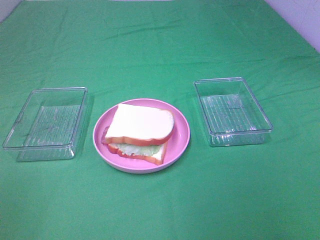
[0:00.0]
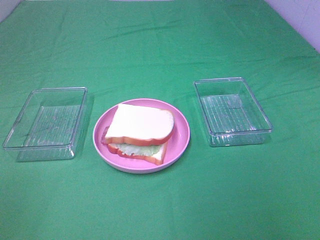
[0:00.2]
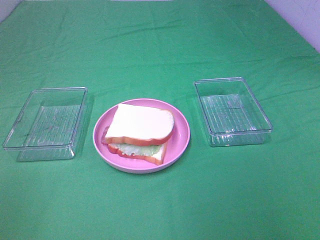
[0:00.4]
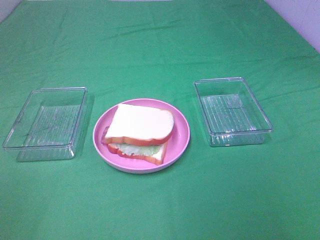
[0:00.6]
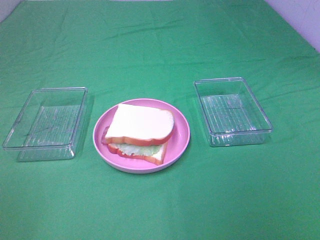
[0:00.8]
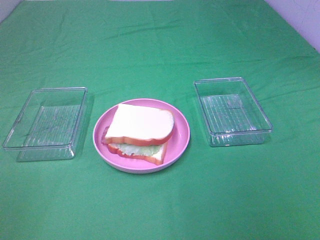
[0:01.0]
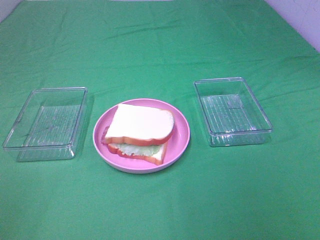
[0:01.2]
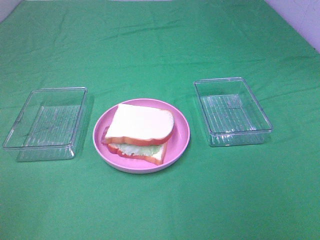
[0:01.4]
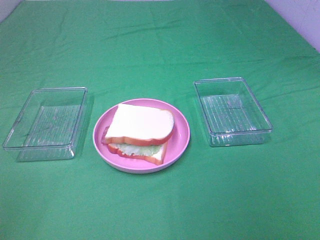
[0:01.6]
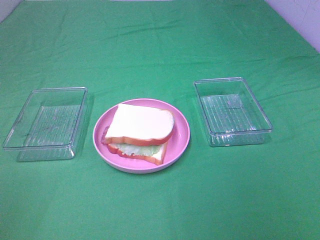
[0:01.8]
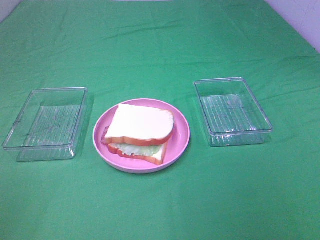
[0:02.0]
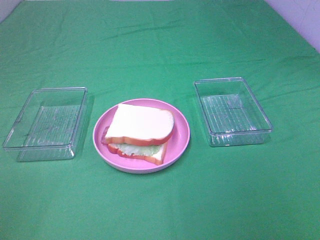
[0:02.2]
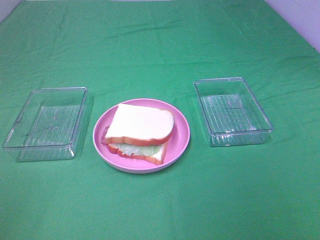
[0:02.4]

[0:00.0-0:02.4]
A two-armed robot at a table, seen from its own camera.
Task of the whole recording: Make sandwiches.
0:01.2 to 0:02.4: Neither gripper changes place.

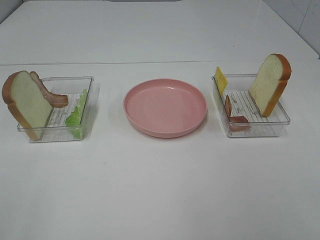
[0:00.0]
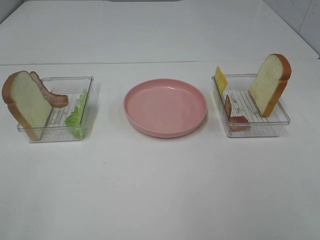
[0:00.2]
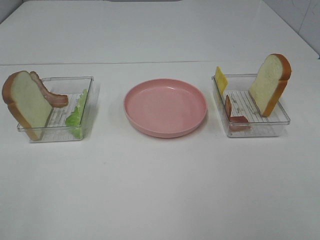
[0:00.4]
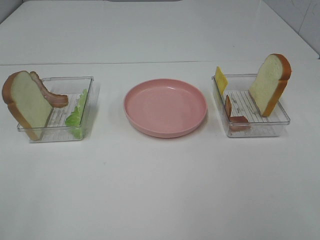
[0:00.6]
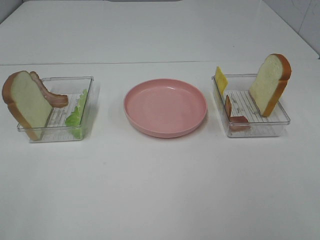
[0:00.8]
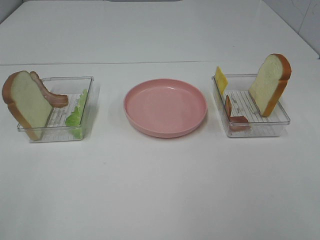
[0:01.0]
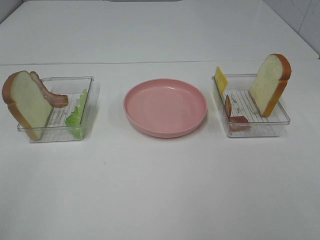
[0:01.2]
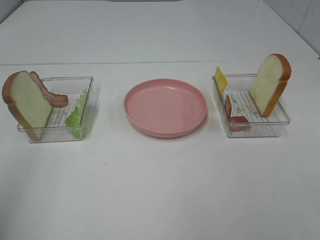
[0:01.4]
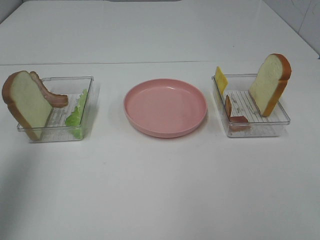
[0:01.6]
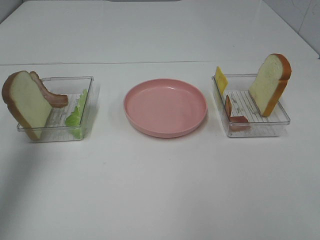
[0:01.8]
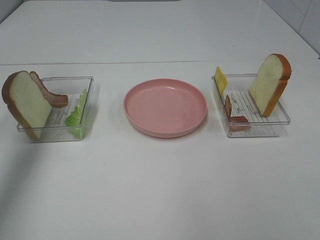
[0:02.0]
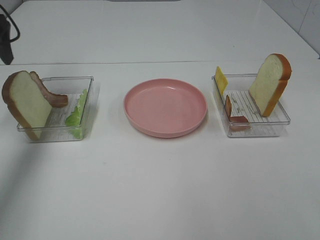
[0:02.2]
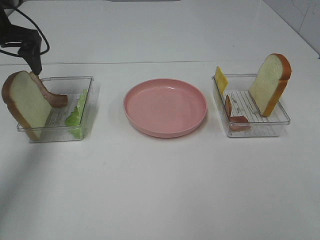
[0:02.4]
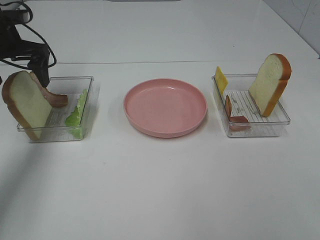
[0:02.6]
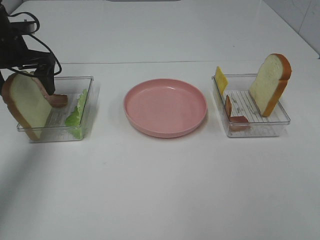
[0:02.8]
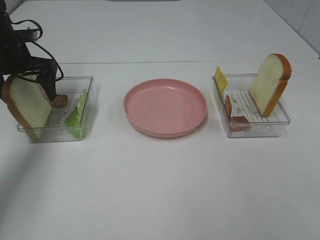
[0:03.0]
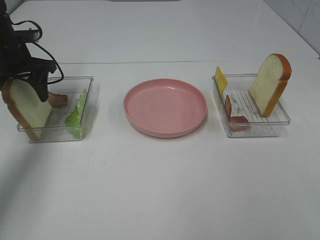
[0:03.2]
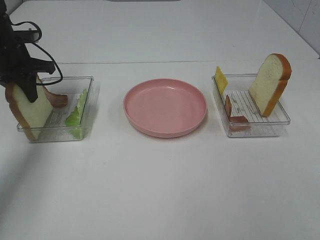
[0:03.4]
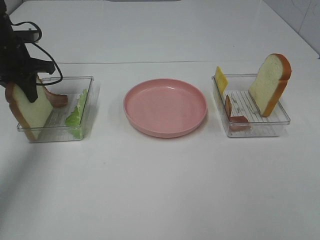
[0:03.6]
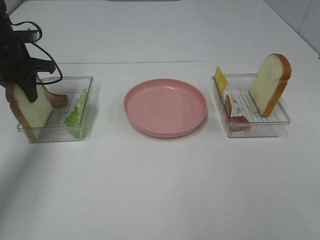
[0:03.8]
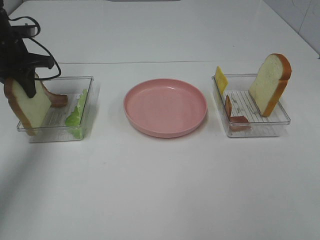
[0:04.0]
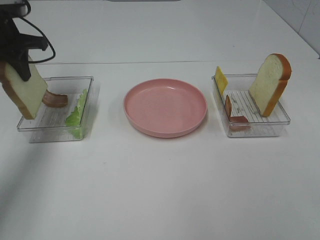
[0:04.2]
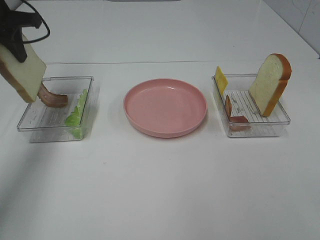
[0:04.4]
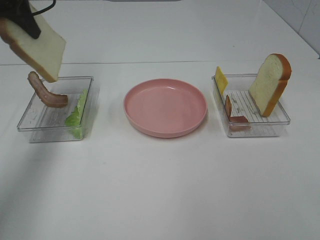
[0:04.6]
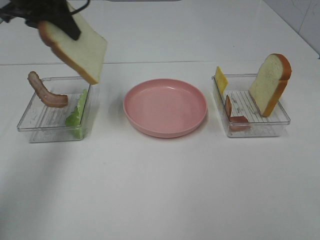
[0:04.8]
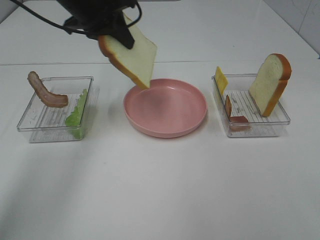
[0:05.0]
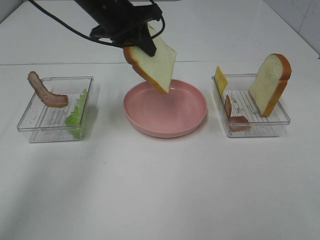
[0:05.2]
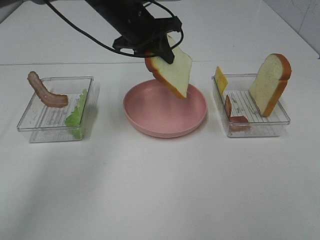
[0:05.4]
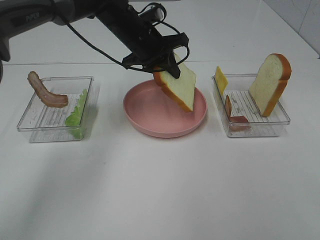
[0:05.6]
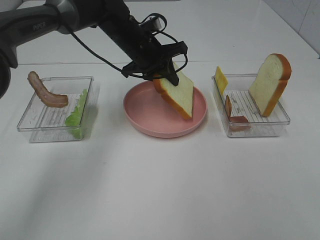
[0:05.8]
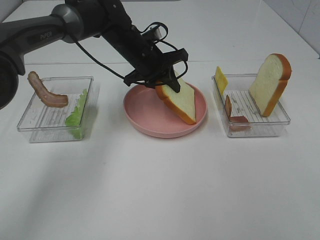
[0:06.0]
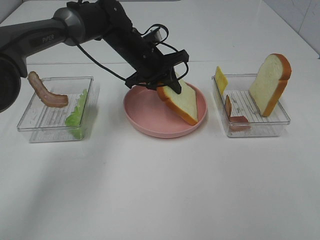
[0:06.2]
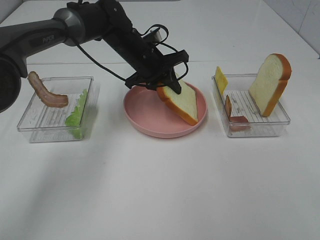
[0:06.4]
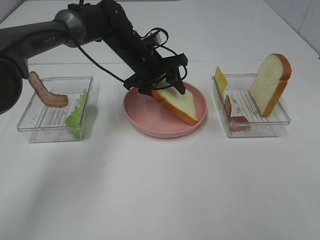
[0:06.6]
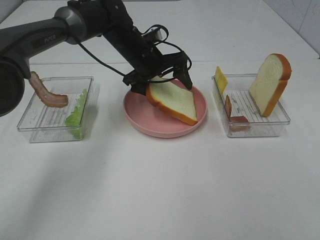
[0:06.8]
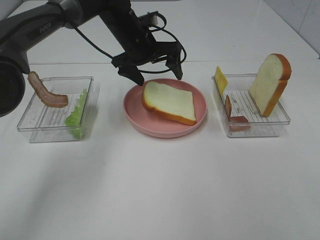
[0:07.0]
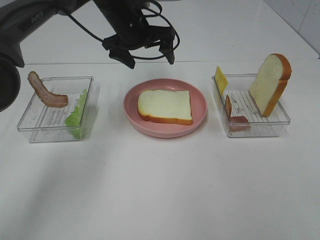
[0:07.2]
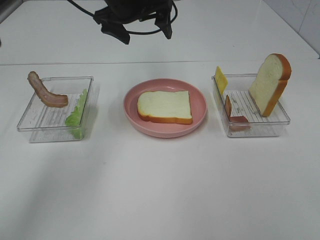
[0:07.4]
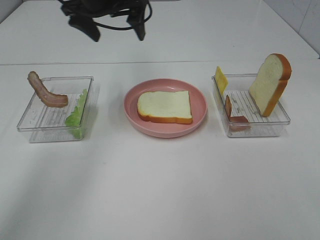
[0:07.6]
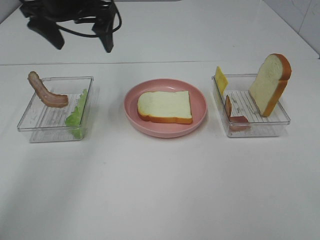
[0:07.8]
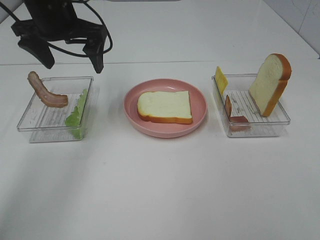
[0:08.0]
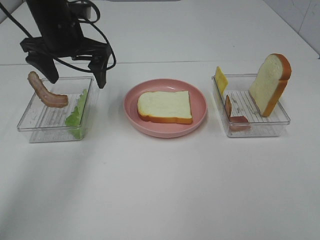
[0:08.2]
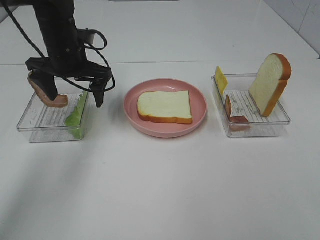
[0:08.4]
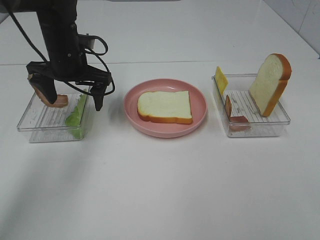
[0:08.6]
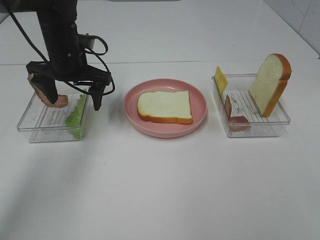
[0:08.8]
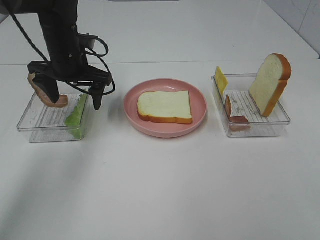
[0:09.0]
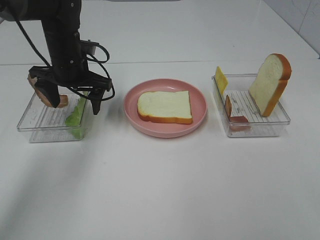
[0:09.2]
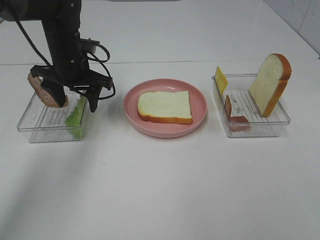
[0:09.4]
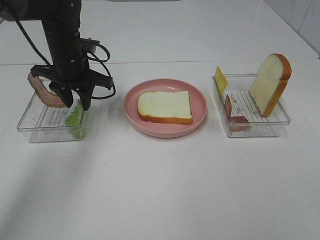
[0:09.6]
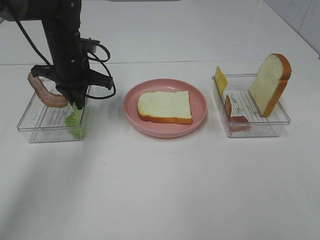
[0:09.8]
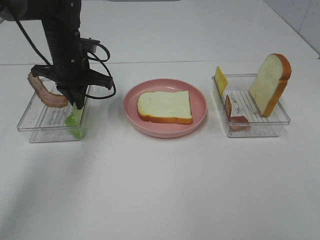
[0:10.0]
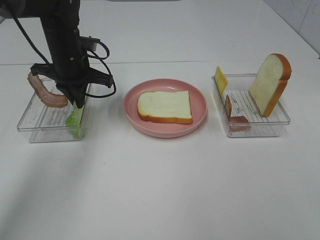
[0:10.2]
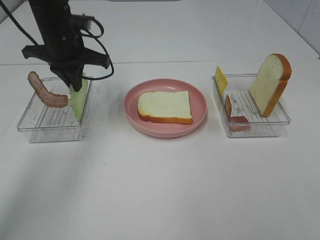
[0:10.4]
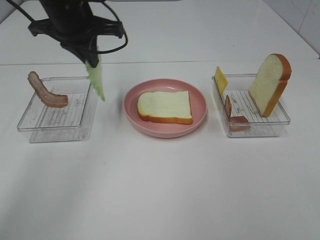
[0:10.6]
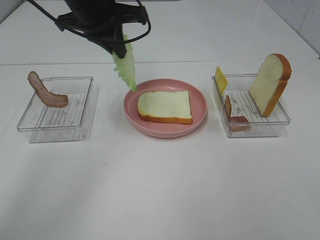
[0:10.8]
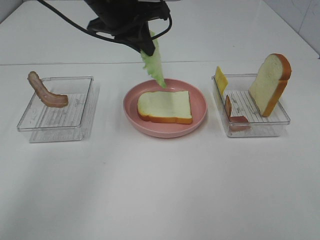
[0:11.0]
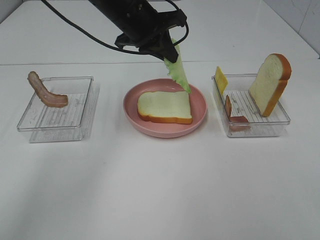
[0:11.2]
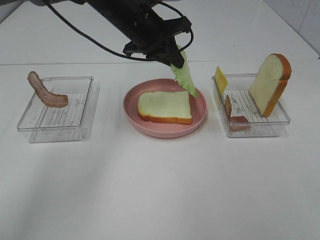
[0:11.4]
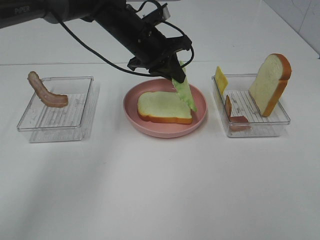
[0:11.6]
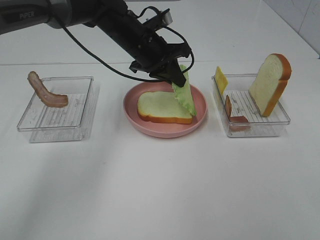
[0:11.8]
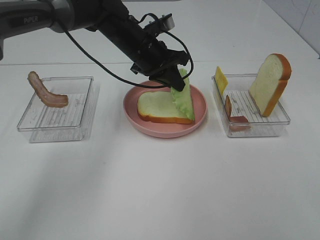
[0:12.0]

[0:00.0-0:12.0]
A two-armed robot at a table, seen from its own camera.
Task of the whole recording: Make sandwiches.
Step, 0:00.0 to 0:03.6: Left hand:grab the bread slice.
Step, 0:03.8 to 0:07.2: Left hand:place the bread slice on the plate.
Step, 0:07.4 to 0:09.8: Left hand:grab the lettuce slice.
0:00.0 to 0:01.6: The left gripper shifts some 20 cm forward.
0:01.6 to 0:03.0: The left gripper is displaced forward and downward by about 30 cm.
0:03.0 to 0:04.4: The left gripper travels upward by approximately 10 cm, and closes up.
0:04.4 to 0:06.0: The left gripper heads to the right and downward, covering approximately 30 cm.
0:06.0 to 0:07.6: The left gripper goes about 15 cm upward and to the left, and opens its fingers.
0:07.6 to 0:09.0: The left gripper moves downward, about 10 cm.
0:09.0 to 0:10.4: The left gripper ends up approximately 5 cm from where it was, and closes.
0:10.4 to 0:12.0: The left gripper moves to the right and downward, about 15 cm.

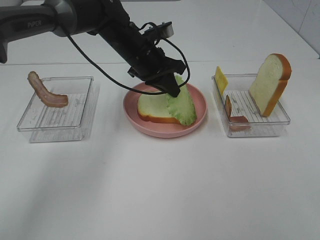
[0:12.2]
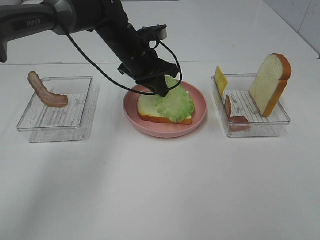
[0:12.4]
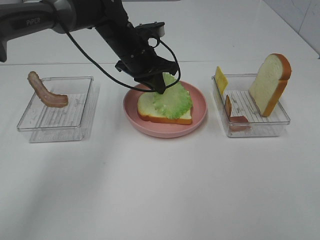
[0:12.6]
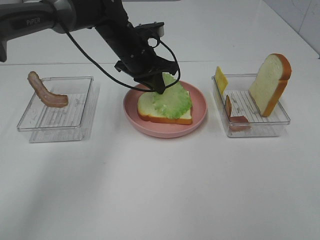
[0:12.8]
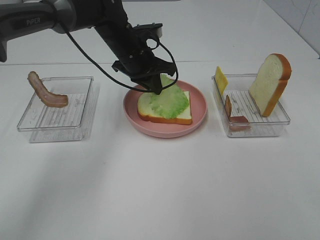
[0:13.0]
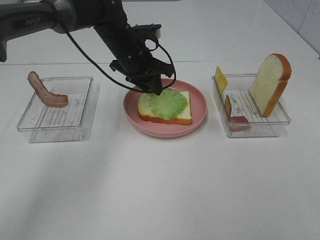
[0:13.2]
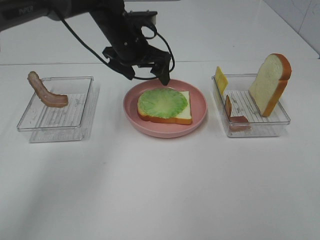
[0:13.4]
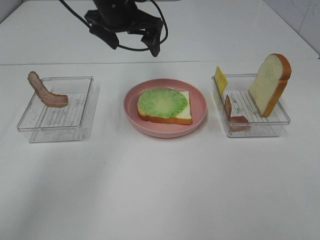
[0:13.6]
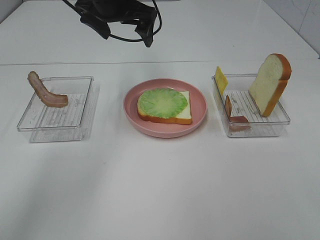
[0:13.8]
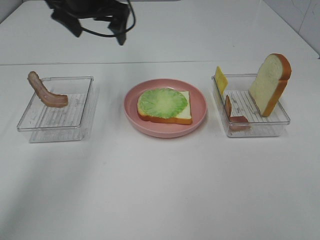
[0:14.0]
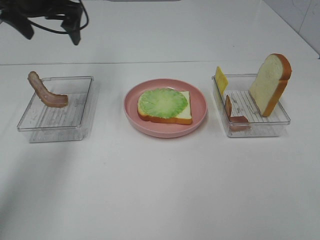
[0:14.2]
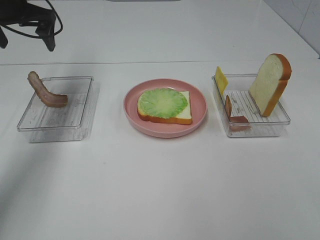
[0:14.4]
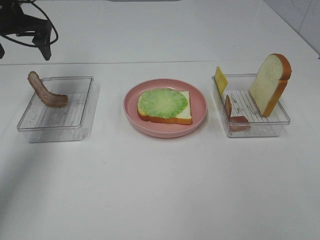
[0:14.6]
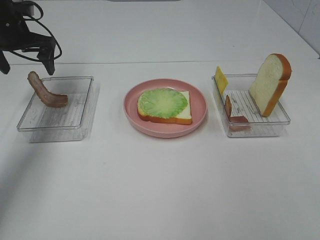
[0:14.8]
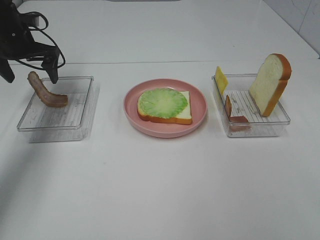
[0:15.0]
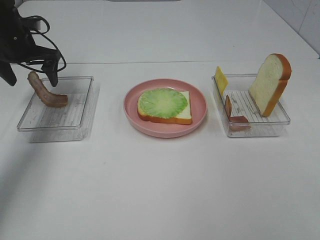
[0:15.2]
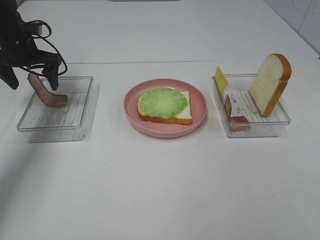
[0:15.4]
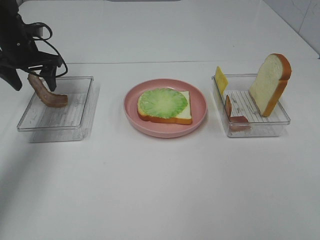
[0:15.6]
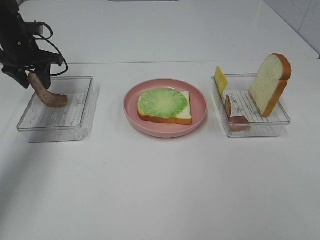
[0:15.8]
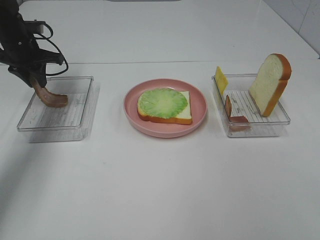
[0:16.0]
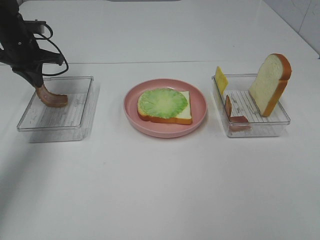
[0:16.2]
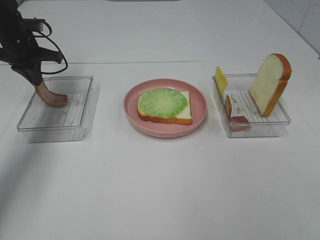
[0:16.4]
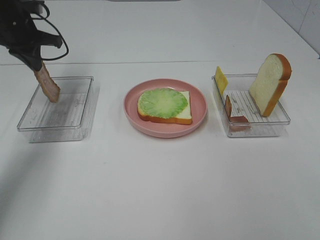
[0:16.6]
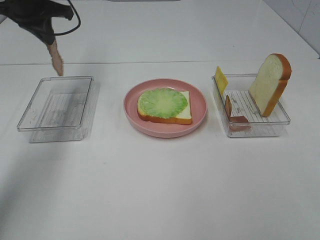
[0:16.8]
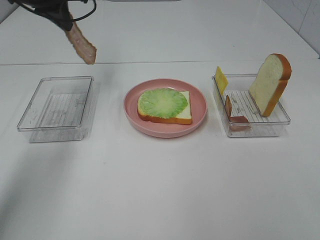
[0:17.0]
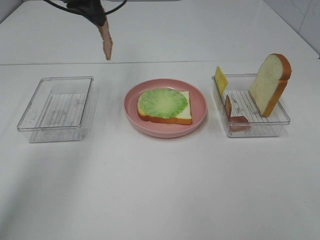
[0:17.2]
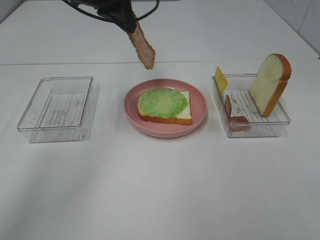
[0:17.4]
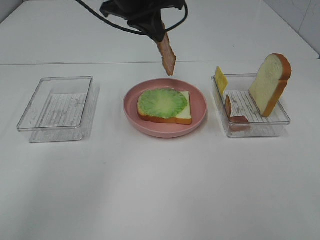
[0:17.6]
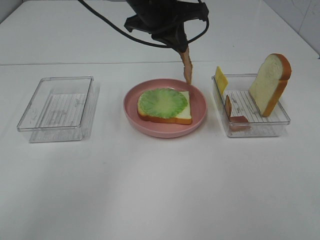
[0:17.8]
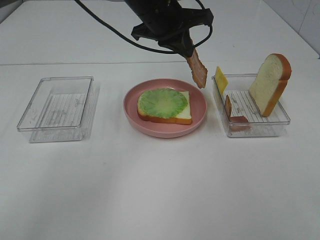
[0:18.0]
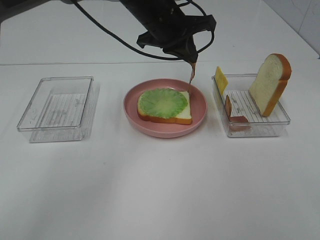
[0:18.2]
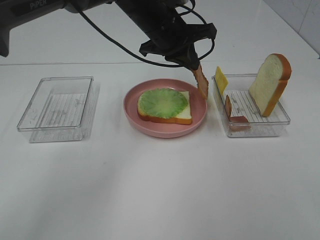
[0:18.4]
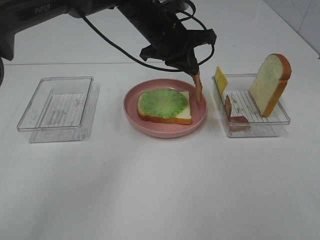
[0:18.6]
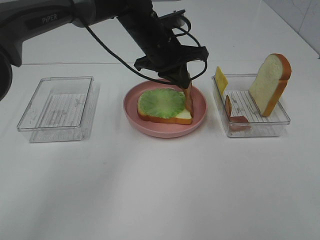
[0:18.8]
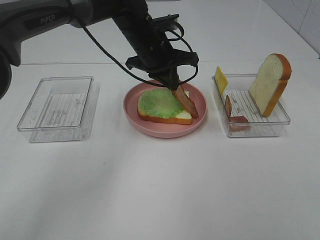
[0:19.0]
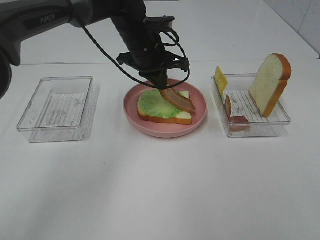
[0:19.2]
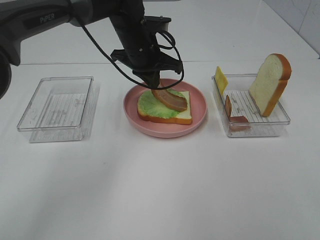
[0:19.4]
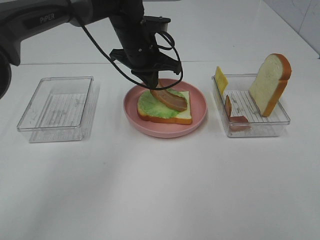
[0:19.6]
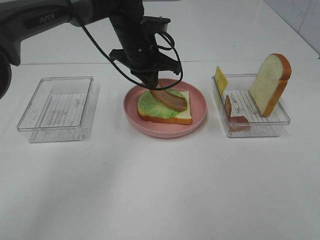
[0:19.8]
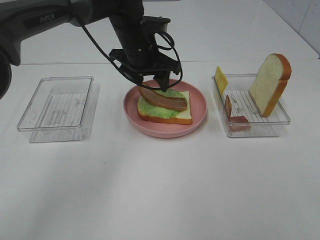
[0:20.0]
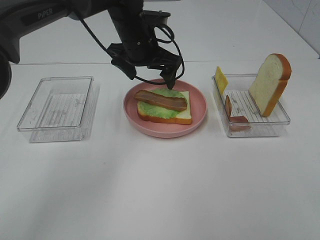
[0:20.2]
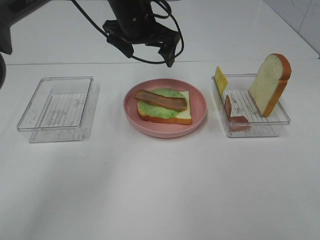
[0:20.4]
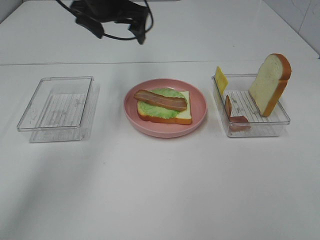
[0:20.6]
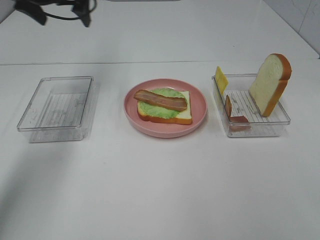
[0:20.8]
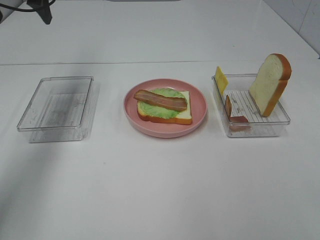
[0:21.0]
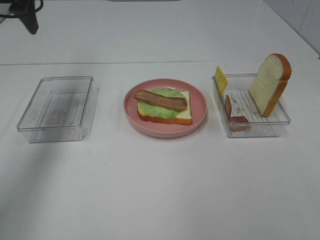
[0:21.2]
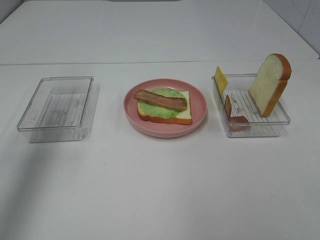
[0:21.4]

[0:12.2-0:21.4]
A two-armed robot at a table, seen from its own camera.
Task of the whole recording: Make sandwiches.
Step, 0:13.6 to 0:16.4: Left hand:grab the bacon.
Step, 0:16.6 to 0:20.0: Left hand:place bacon on lettuce slice.
0:12.2 to 0:13.8: The left gripper goes approximately 10 cm upward, and opens its fingers.
0:13.8 to 0:15.2: The left gripper goes some 25 cm to the left and downward.
0:15.2 to 0:16.8: The left gripper shifts roughly 10 cm upward and to the right, and closes its fingers.
0:16.8 to 0:18.4: The left gripper moves to the right, some 25 cm.
0:18.4 to 0:19.8: The left gripper ends up approximately 5 cm from where it was.
0:19.8 to 0:21.4: The left gripper goes some 35 cm to the left, backward and upward, and opens up.
